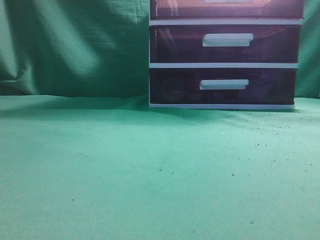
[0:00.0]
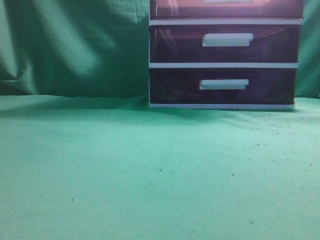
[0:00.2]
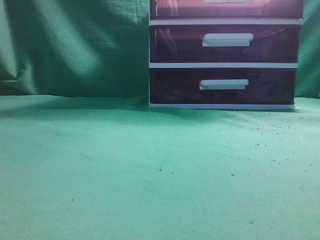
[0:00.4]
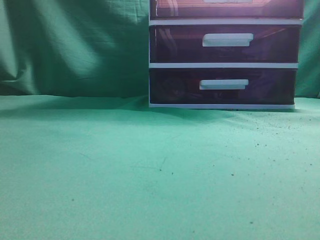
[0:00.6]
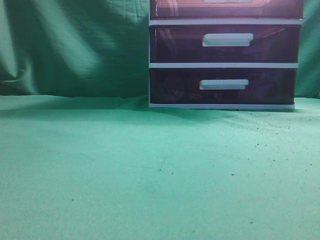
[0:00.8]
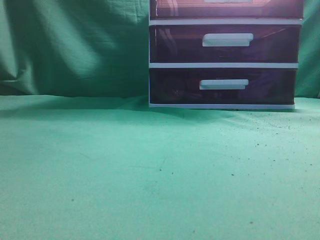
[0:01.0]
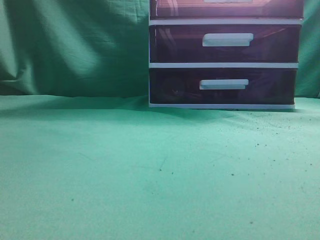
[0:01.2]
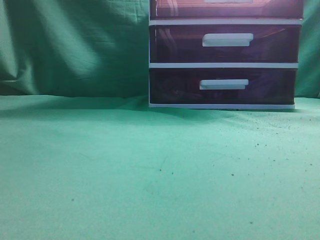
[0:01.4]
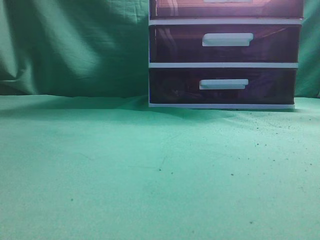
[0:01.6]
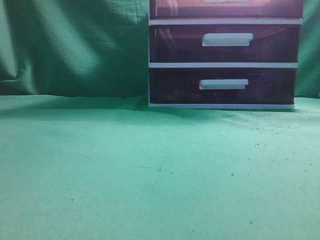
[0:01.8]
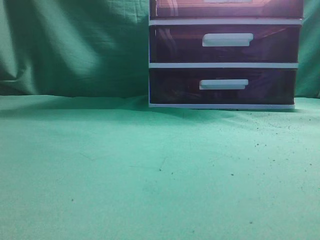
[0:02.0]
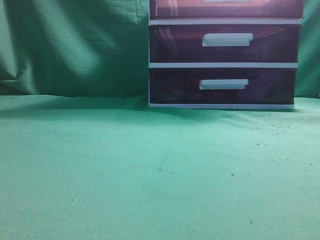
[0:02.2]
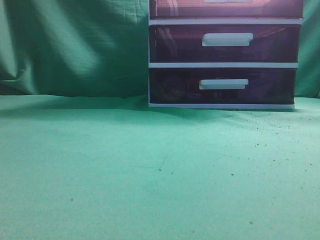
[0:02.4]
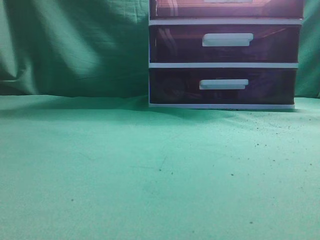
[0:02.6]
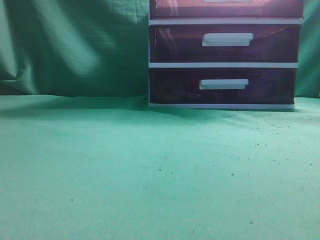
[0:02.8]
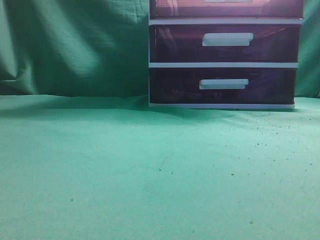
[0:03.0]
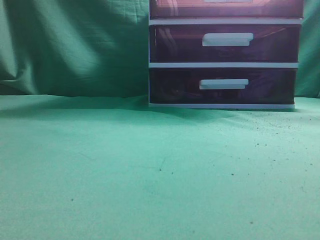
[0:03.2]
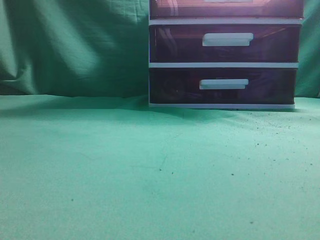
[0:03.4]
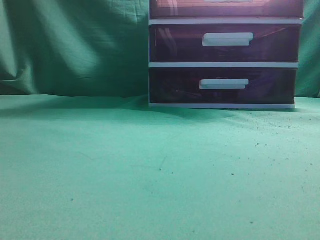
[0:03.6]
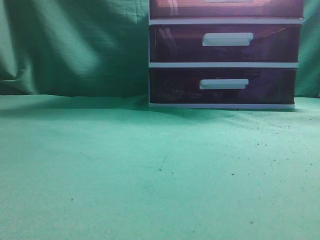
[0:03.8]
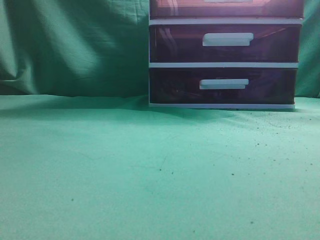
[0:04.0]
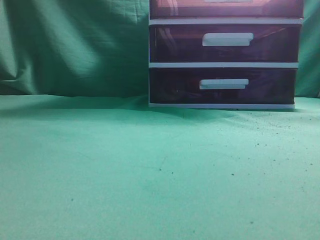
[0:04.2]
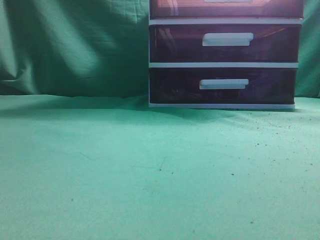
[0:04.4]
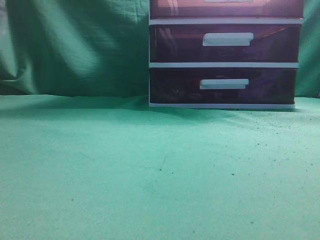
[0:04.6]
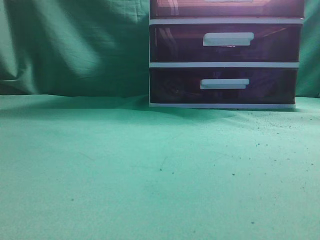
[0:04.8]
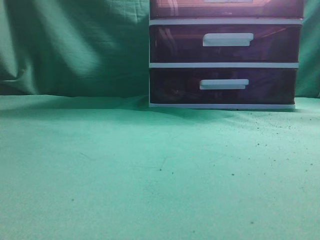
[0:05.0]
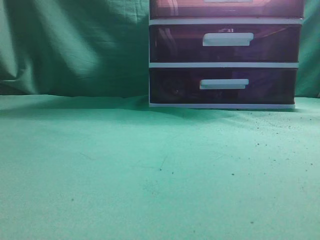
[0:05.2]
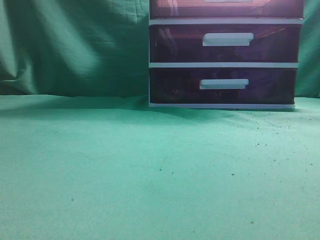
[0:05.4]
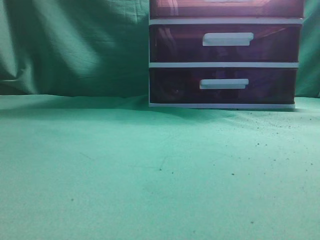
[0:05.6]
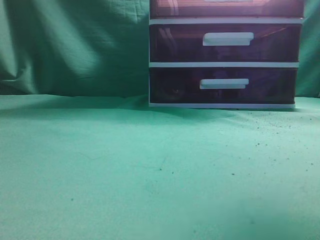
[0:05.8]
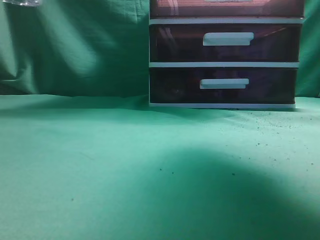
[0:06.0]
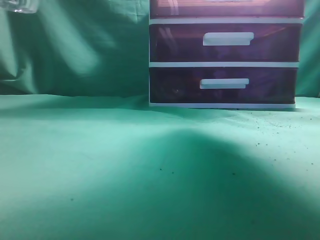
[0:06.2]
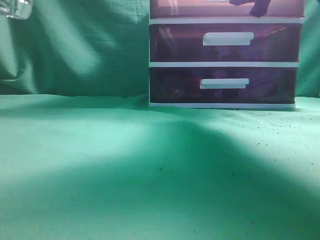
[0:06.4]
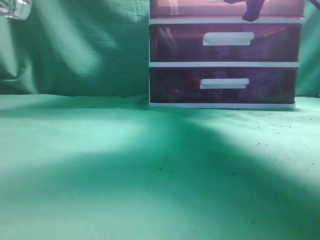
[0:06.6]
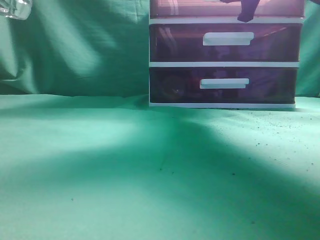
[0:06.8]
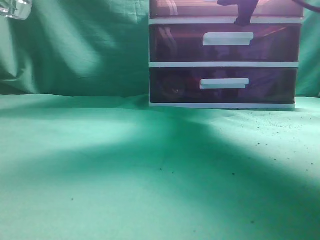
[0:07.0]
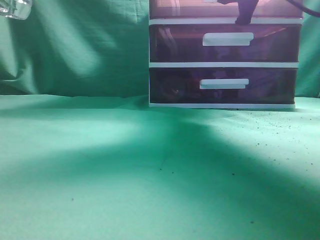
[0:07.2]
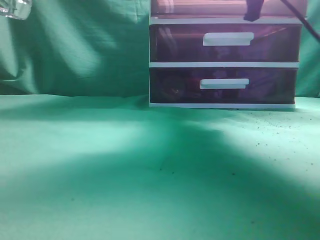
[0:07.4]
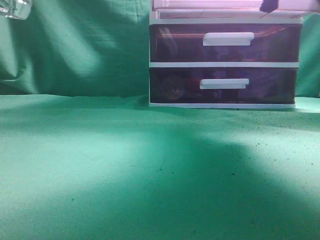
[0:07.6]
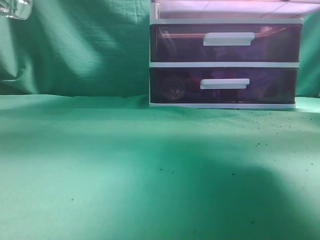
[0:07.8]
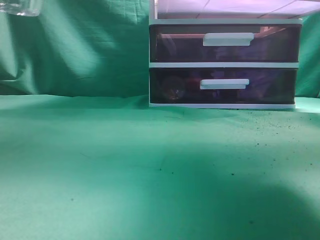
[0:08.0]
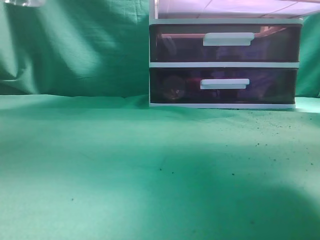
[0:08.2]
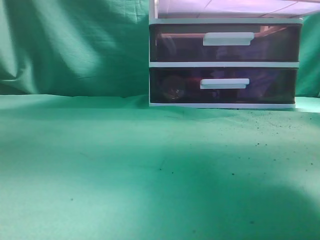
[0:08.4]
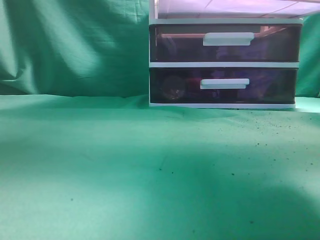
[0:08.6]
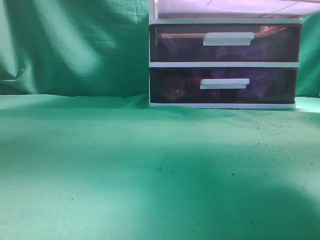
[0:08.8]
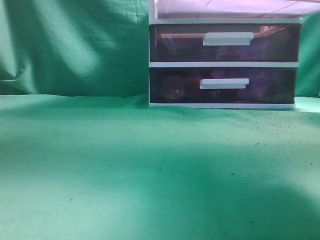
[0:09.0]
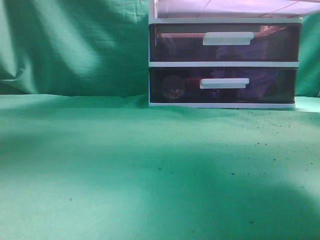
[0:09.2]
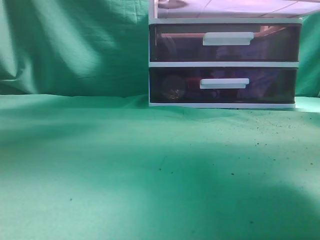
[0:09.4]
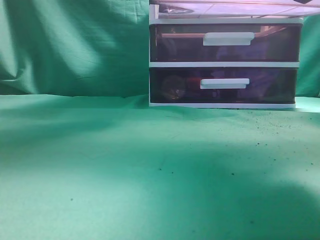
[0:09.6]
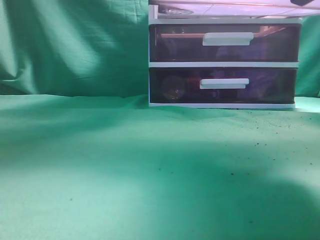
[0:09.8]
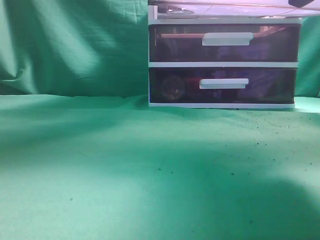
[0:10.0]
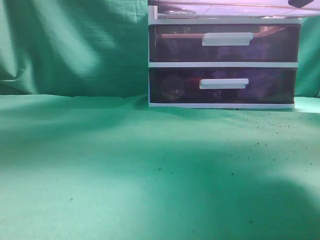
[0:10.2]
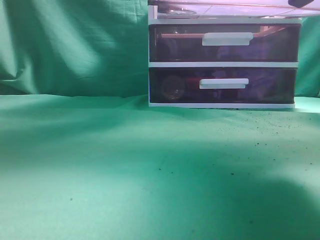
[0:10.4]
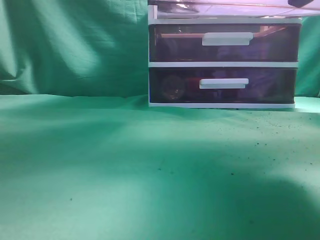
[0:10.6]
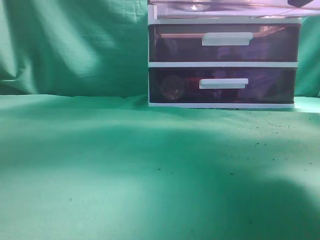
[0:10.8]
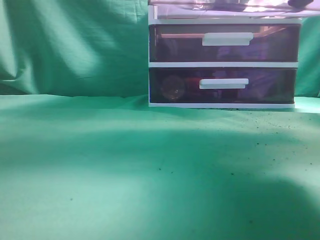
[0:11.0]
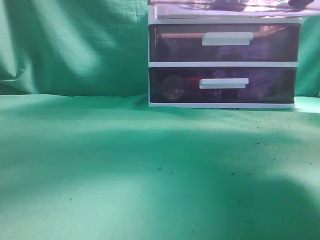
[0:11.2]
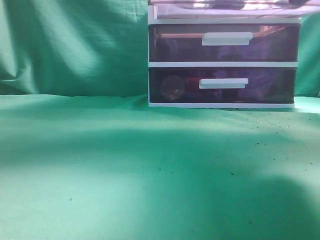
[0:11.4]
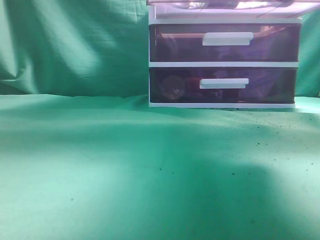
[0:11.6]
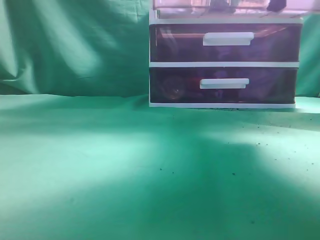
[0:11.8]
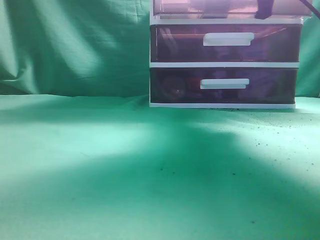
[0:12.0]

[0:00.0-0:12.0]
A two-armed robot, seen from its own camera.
Task of the whole recording: place the water bottle into the drawer.
Step, 0:00.0 to 0:08.2: Open the drawer.
Step, 0:08.4 to 0:11.2: Place the water bottle inside the drawer.
0:04.4 to 0:06.0: The left gripper is displaced to the right, upward and backward by about 15 cm; the right gripper shifts about 30 cm forward and upward, and opens its fingers.
0:06.0 to 0:07.6: The right gripper closes up.
0:07.6 to 0:09.0: The right gripper moves backward, roughly 10 cm; the left gripper moves upward, to the right and forward, approximately 20 cm.
0:09.0 to 0:10.4: The left gripper moves downward, forward and to the right, some 15 cm, and opens up.
0:10.4 to 0:12.0: The left gripper goes roughly 30 cm backward, to the left and upward, and closes. Meanwhile the right gripper heads forward, covering about 10 cm.

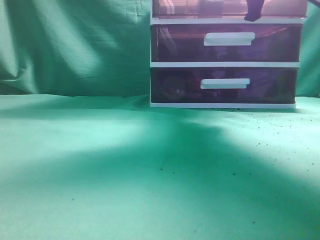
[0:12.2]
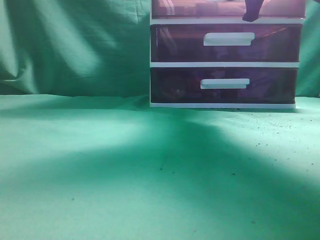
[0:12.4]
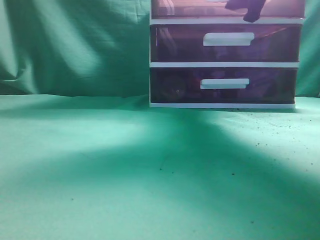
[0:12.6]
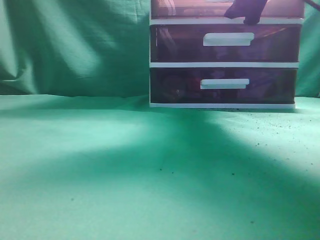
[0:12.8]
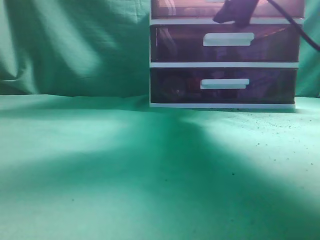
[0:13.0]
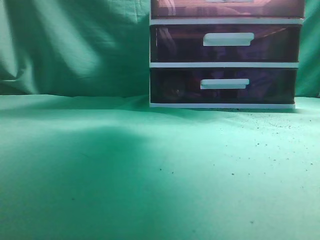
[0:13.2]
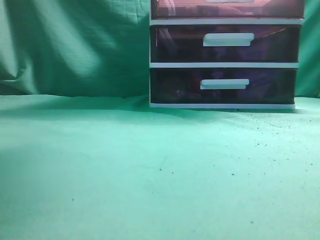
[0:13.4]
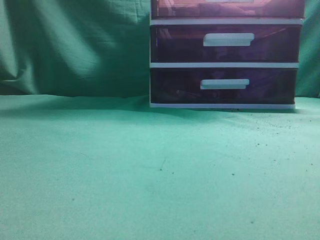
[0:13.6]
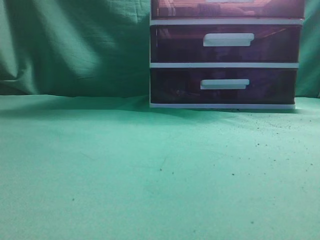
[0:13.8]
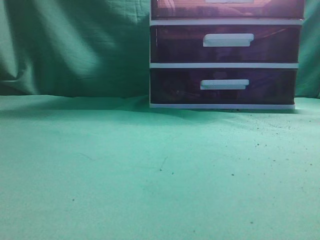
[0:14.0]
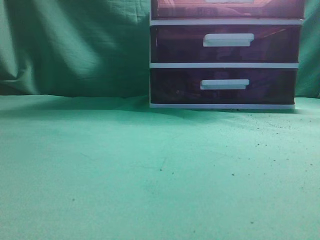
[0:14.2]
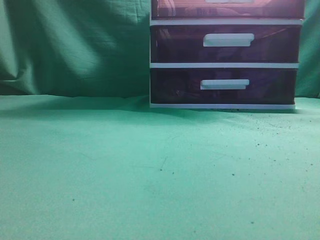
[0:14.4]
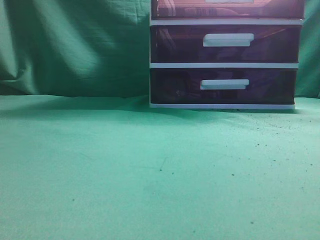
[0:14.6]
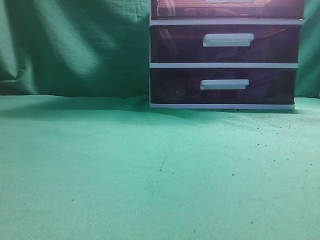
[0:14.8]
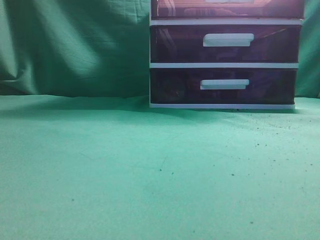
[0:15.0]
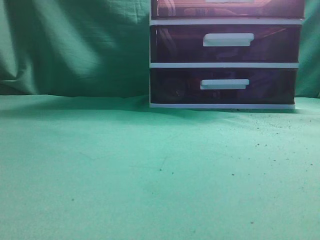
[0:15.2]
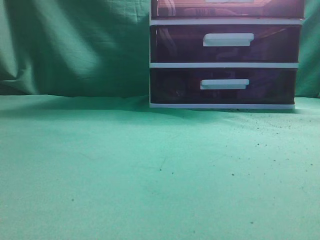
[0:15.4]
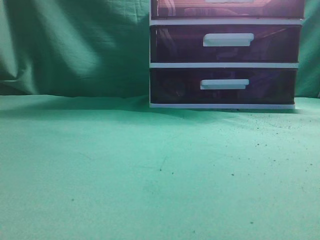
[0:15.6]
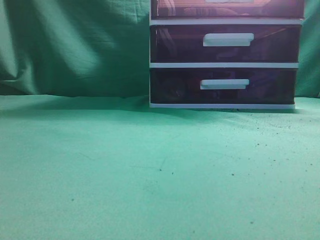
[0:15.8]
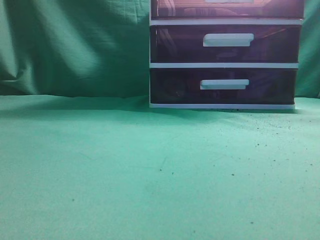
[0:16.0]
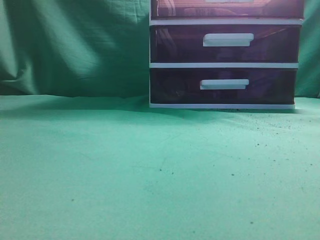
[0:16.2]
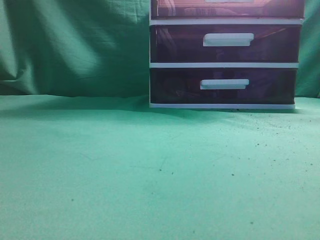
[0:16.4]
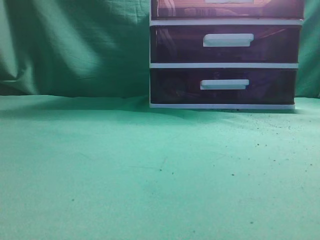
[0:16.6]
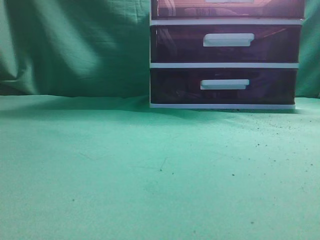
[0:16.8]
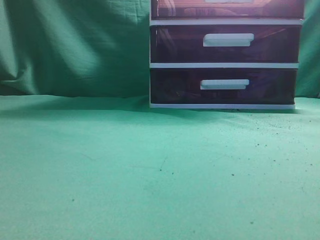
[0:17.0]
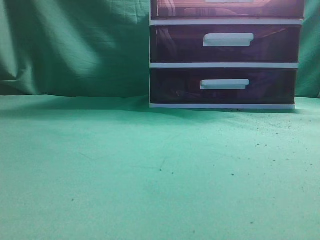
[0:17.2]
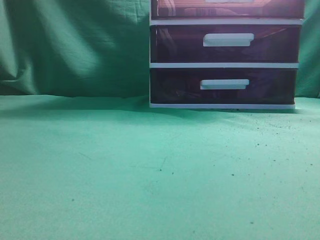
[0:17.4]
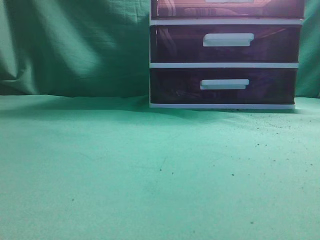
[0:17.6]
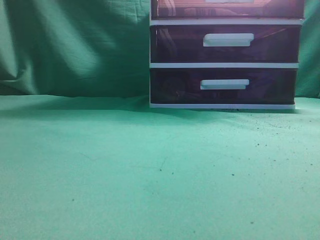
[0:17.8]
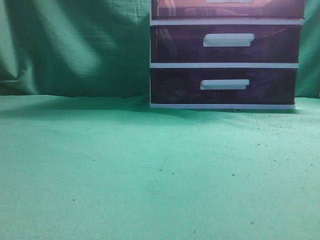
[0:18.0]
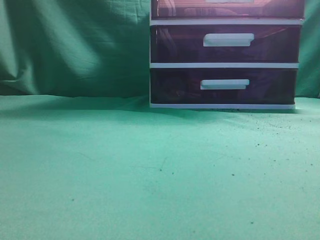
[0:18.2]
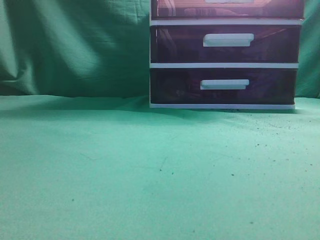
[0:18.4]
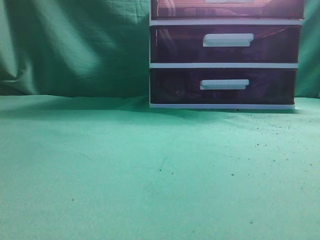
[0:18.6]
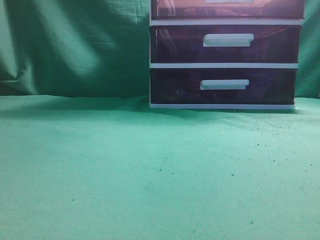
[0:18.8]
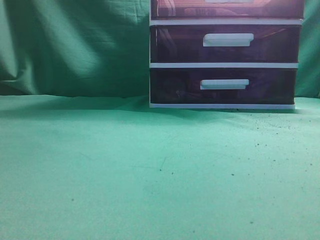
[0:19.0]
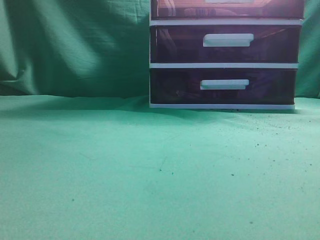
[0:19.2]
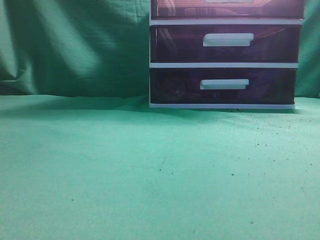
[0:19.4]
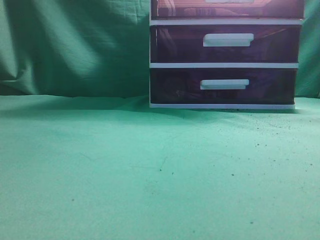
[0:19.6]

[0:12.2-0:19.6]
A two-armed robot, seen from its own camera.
Task of the whole recording: place the water bottle into the drawer.
Step, 0:12.2 to 0:13.2: Close the drawer.
0:12.2 to 0:13.6: The left gripper travels backward, to the left and downward by about 15 cm. The right gripper heads backward, upward and to the left, covering about 20 cm, and opens, then closes once more.

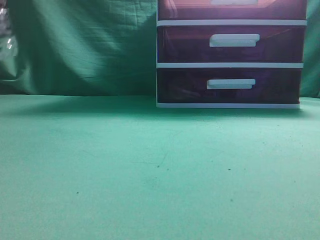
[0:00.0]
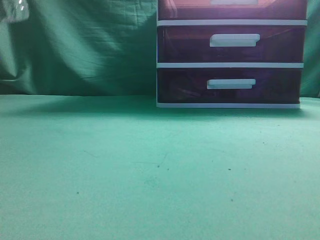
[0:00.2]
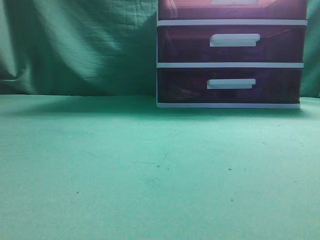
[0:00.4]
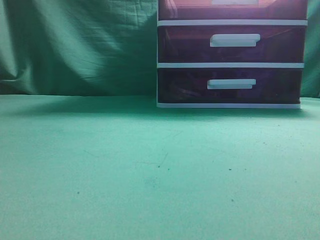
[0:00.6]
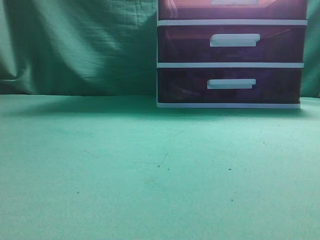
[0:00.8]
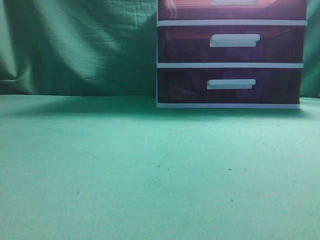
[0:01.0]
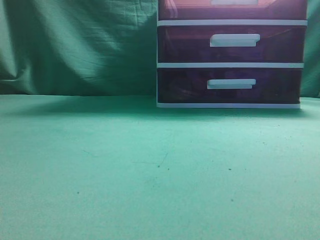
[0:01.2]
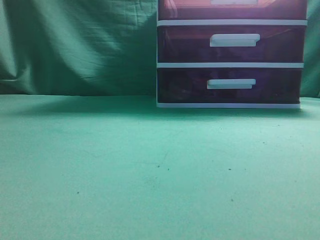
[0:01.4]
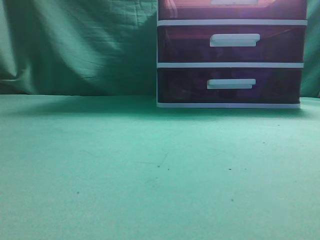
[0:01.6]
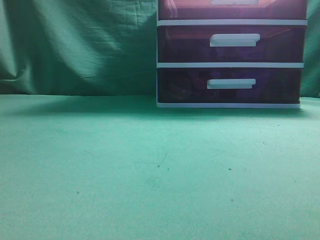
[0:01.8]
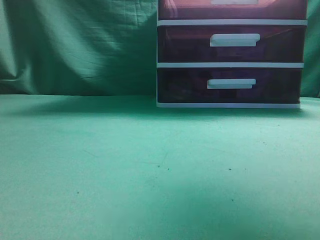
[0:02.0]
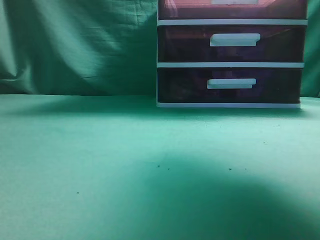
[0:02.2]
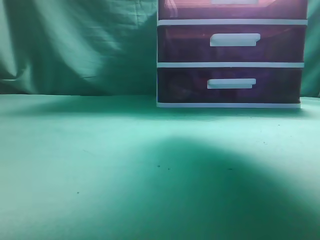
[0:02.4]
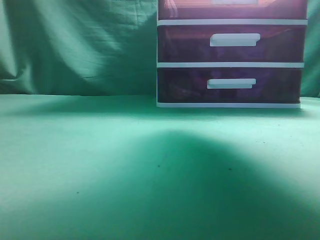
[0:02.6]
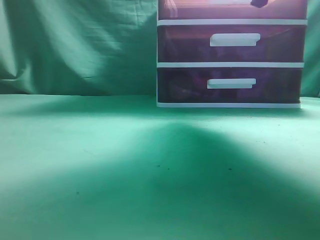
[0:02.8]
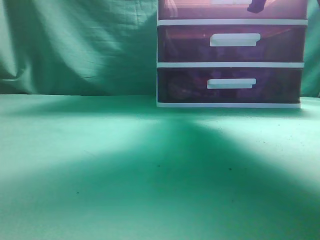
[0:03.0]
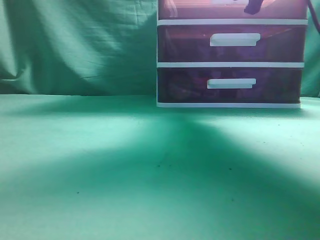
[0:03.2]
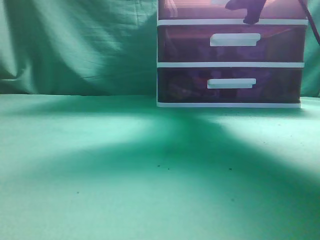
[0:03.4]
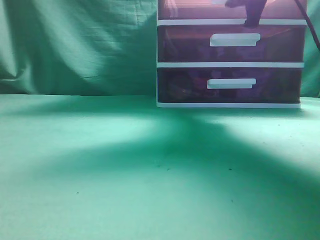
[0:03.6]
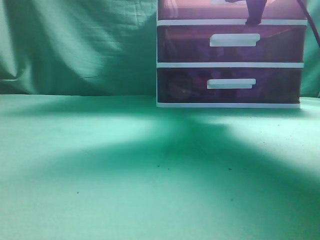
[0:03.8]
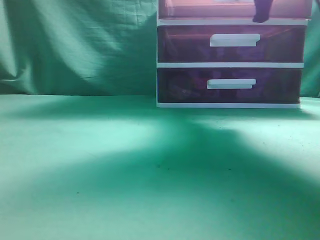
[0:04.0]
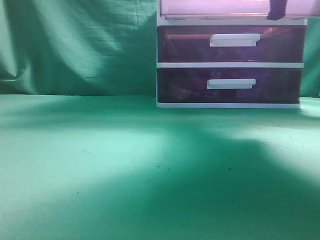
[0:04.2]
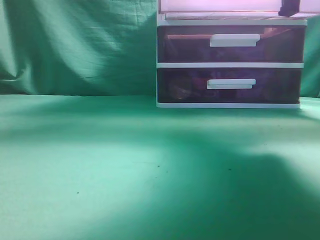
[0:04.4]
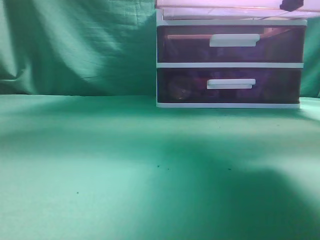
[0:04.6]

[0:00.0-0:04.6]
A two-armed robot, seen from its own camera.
Task of the whole recording: place the water bottle into the drawer.
0:01.6 to 0:03.0: The right gripper heads forward and downward, covering about 20 cm, and opens its fingers.
0:03.0 to 0:04.6: The right gripper moves backward, some 10 cm, and closes up.
